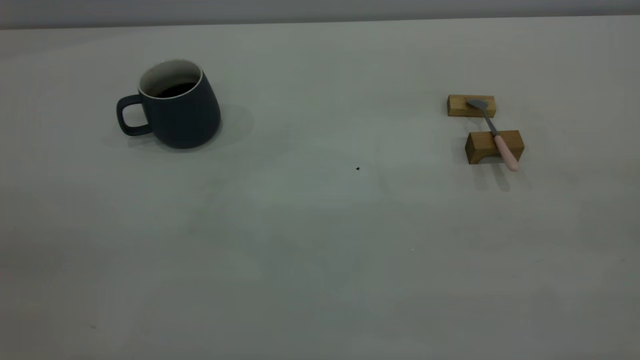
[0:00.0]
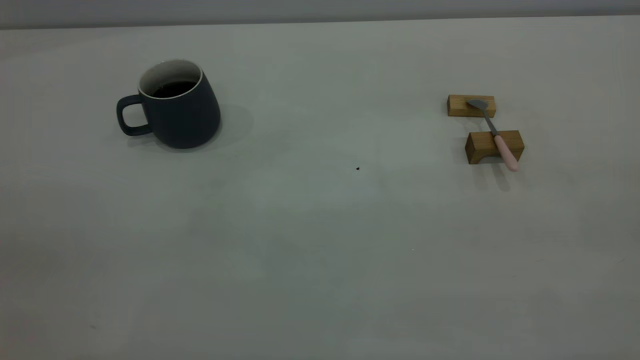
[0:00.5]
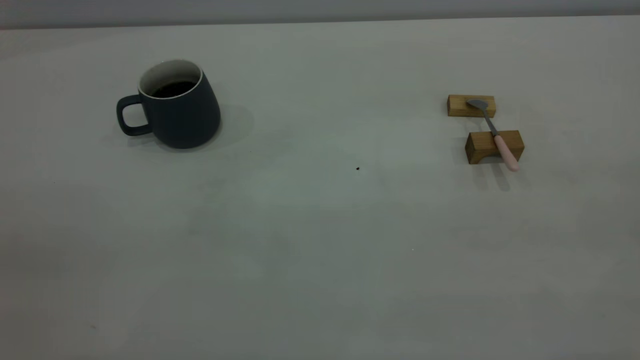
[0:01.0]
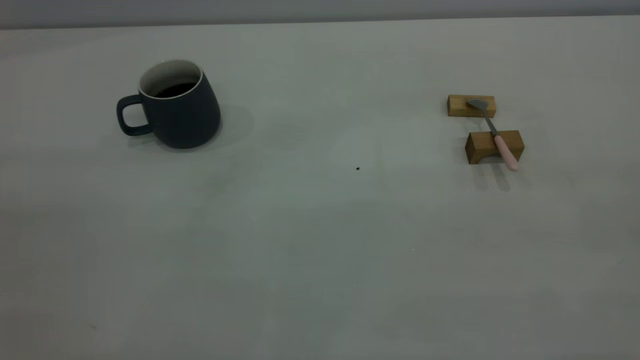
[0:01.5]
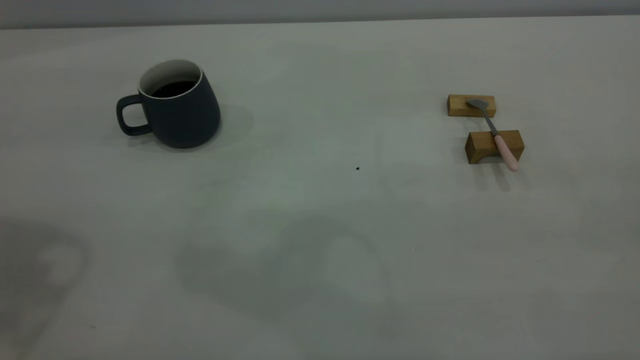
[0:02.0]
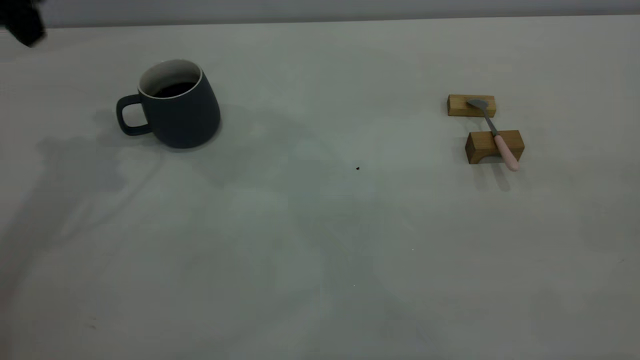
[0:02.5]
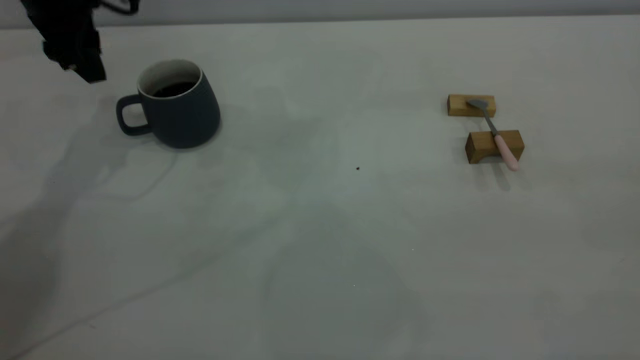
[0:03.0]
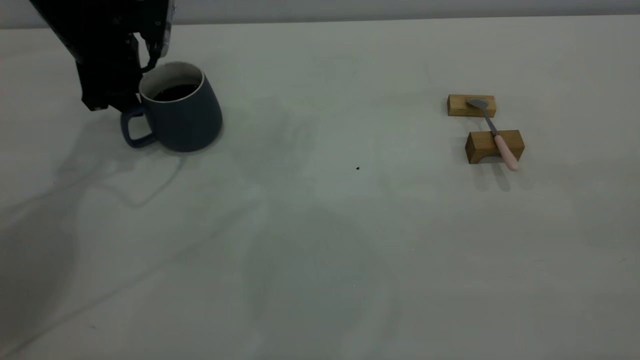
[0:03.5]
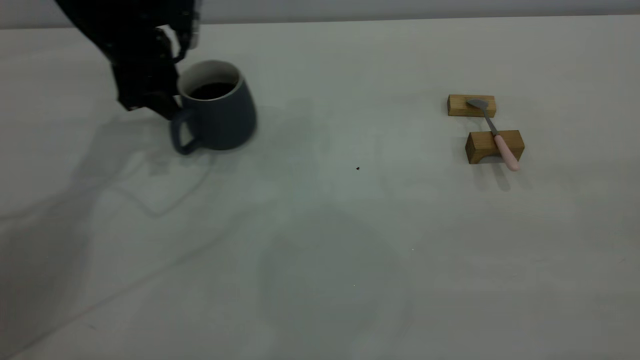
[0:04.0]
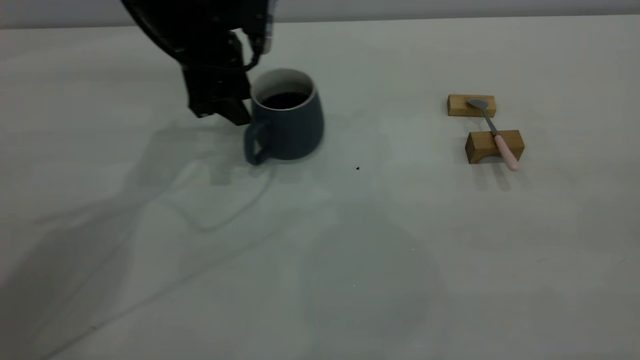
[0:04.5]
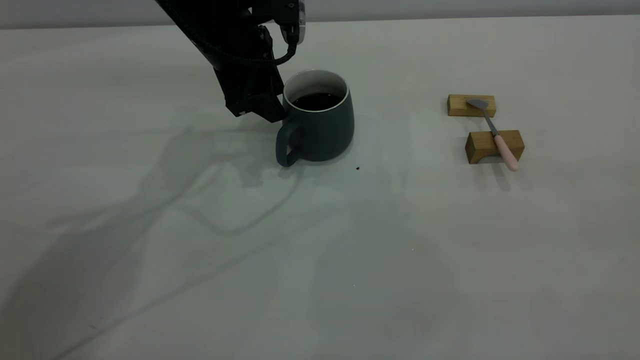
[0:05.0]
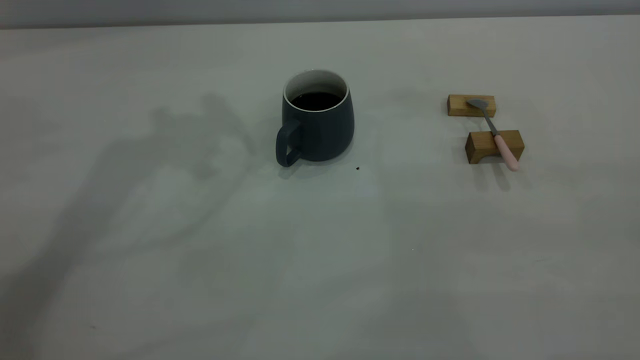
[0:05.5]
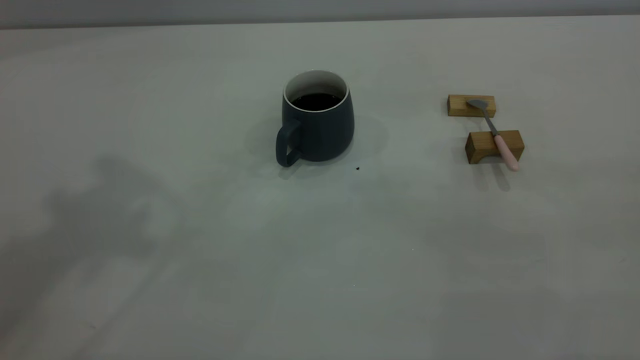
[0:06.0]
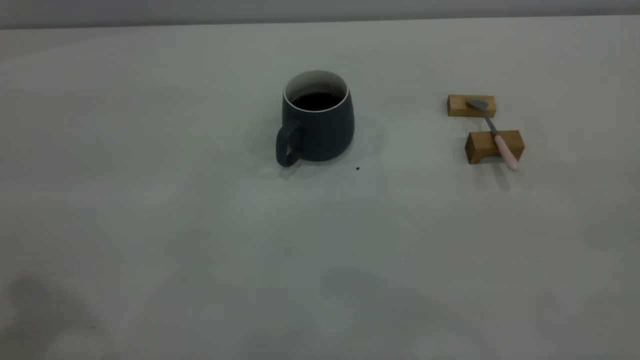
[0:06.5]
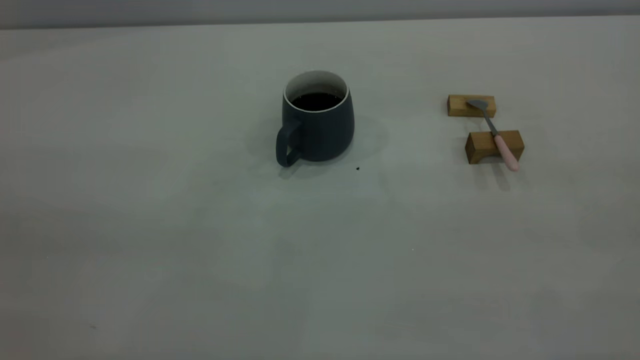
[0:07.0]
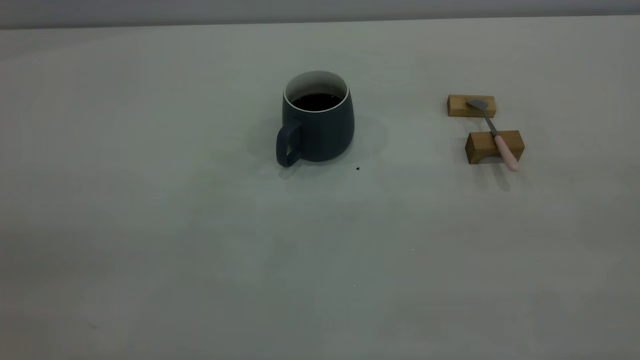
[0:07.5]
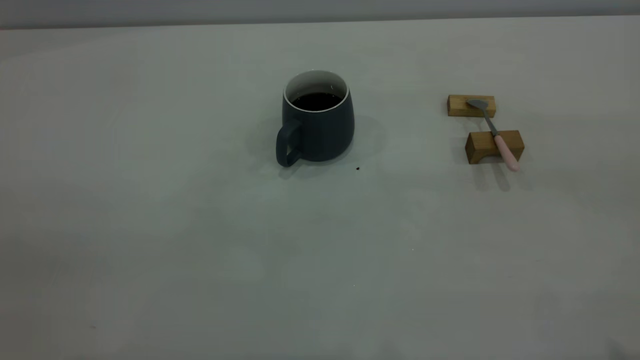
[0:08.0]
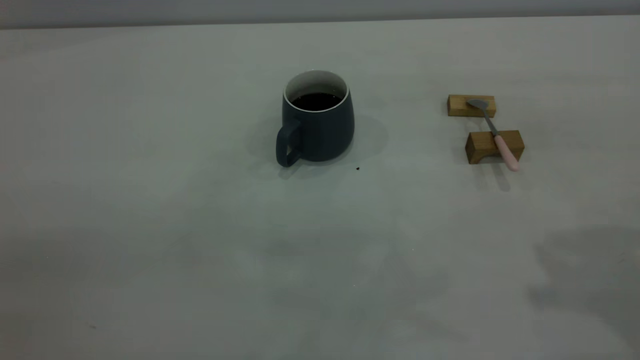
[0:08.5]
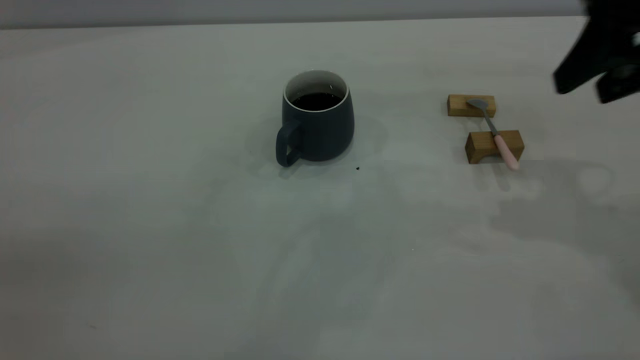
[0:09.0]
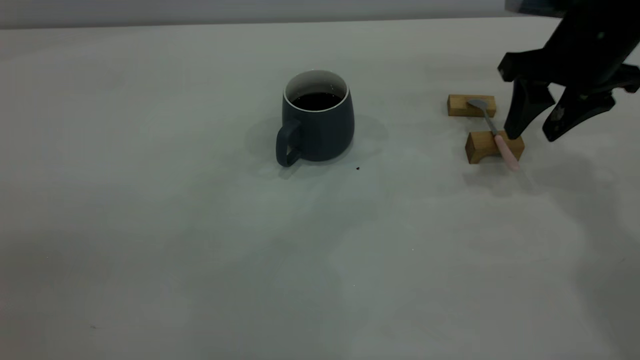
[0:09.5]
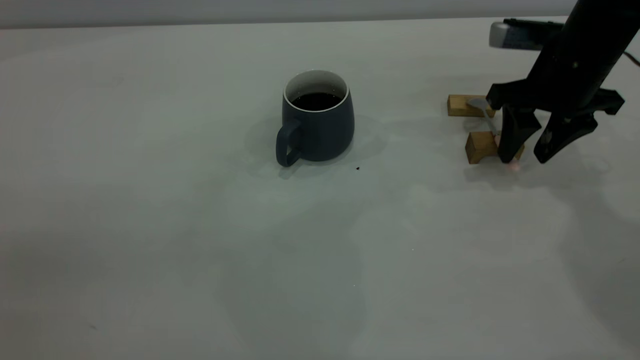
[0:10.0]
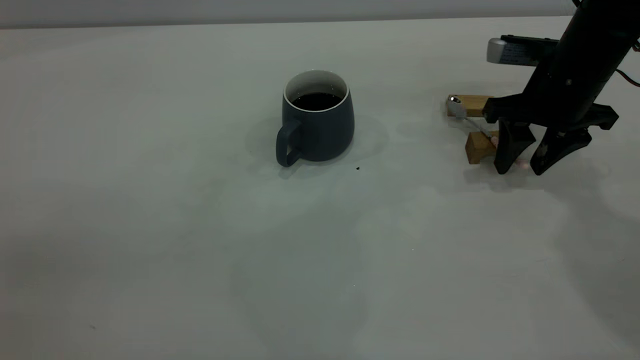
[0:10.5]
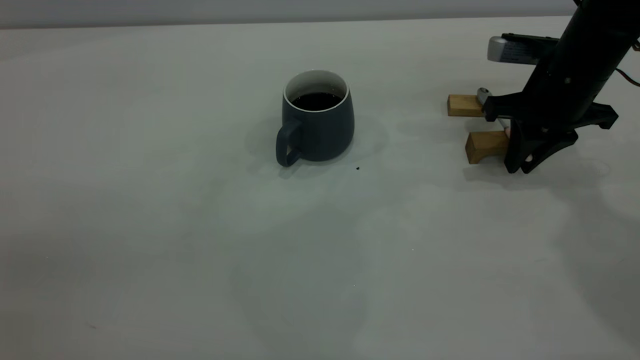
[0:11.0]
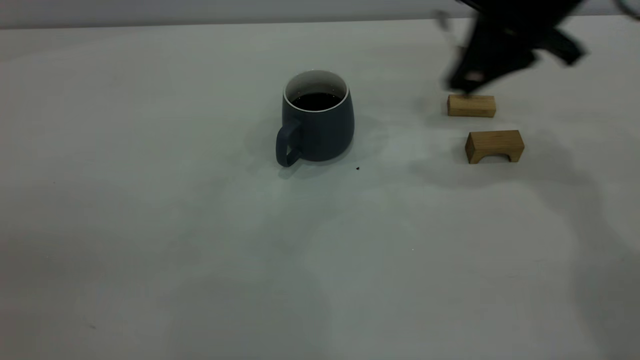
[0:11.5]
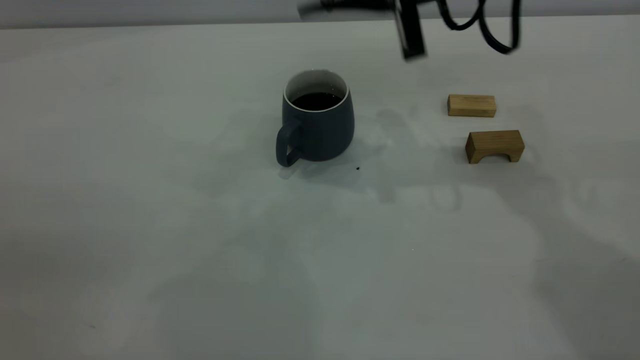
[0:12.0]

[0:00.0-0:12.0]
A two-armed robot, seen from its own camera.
Step, 0:00.0 to 0:05.0: Move the cup with coffee to the center of view.
Step, 0:05.5 to 0:11.0: Pick up the spoon.
0:02.0 to 0:04.0: The left gripper moves forward and downward, some 30 cm.
0:04.0 to 0:06.0: The left gripper heads upward and backward, covering roughly 40 cm.
0:08.0 to 0:10.0: The right gripper is displaced forward and downward by about 40 cm.
0:10.0 to 0:12.0: The right gripper travels to the left and upward by some 15 cm, and closes.

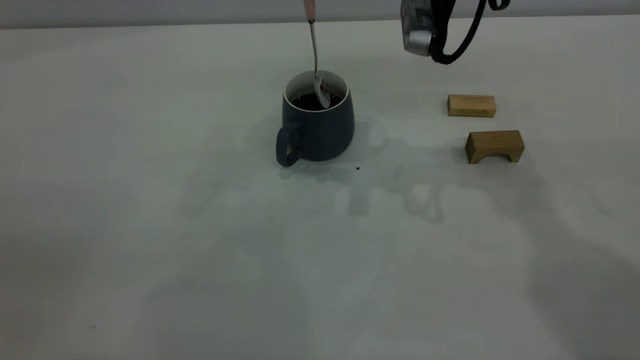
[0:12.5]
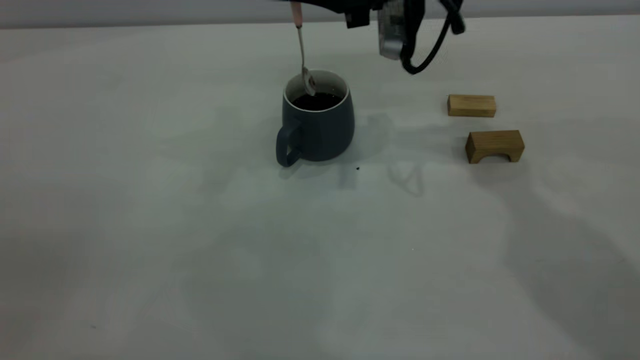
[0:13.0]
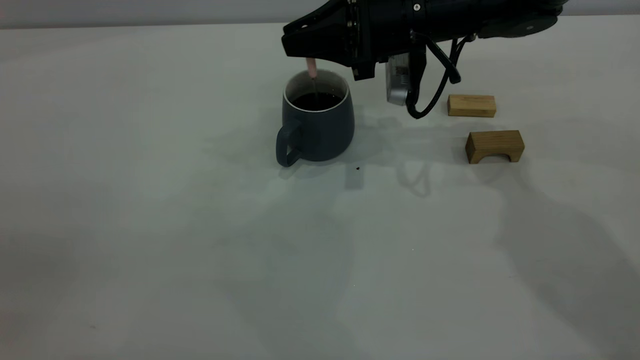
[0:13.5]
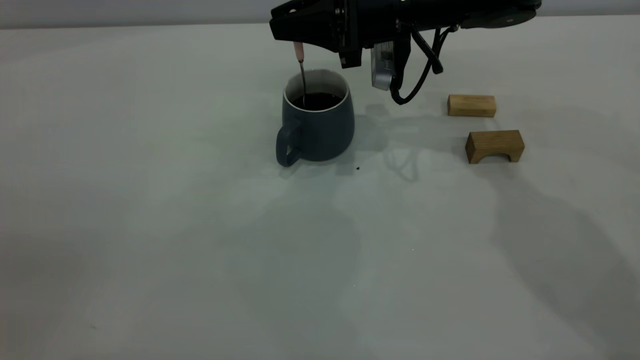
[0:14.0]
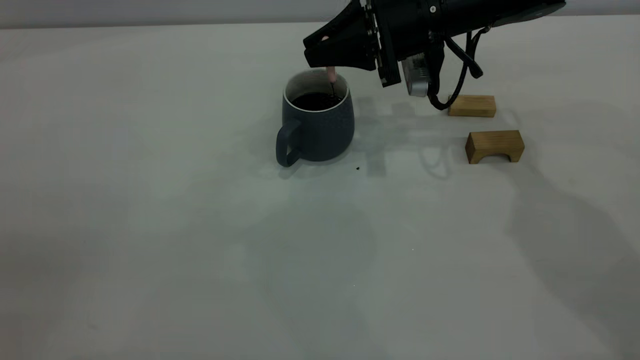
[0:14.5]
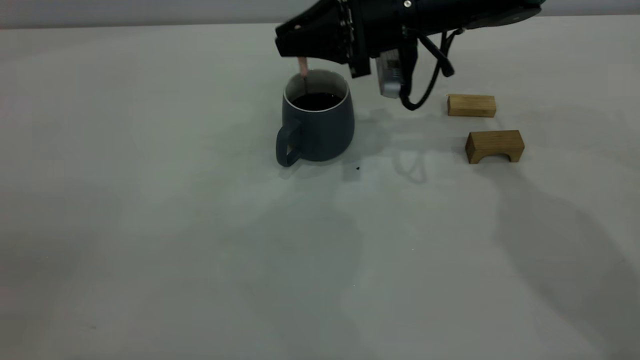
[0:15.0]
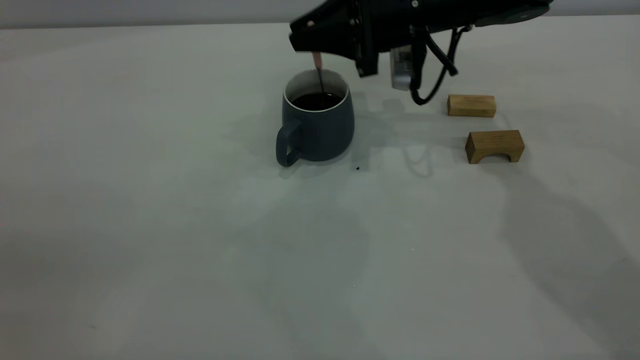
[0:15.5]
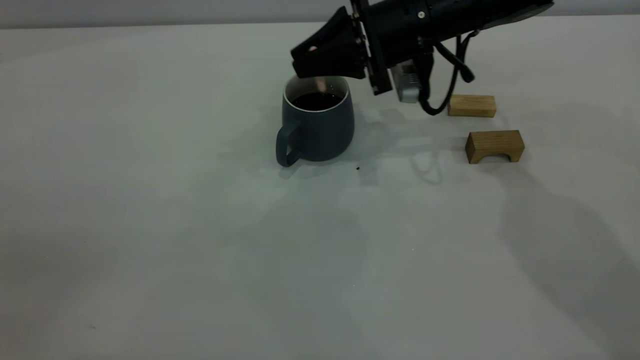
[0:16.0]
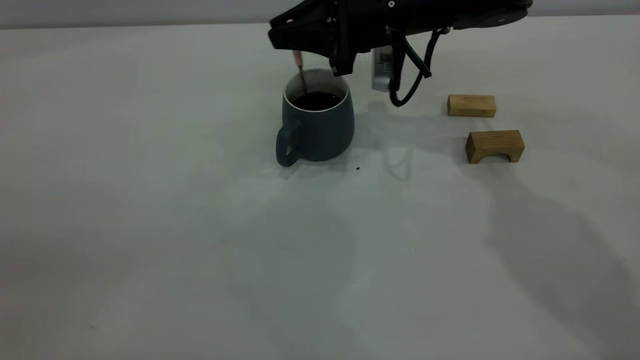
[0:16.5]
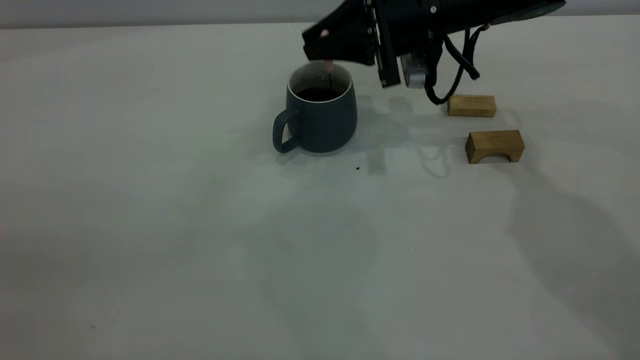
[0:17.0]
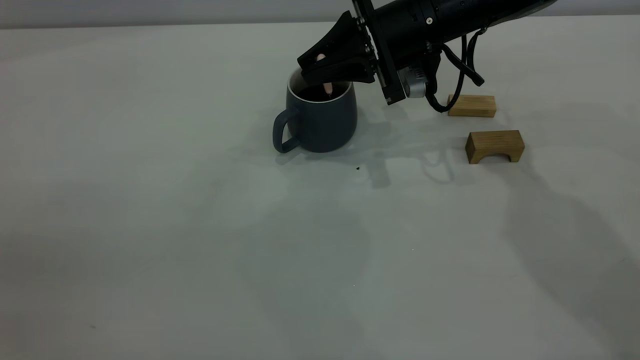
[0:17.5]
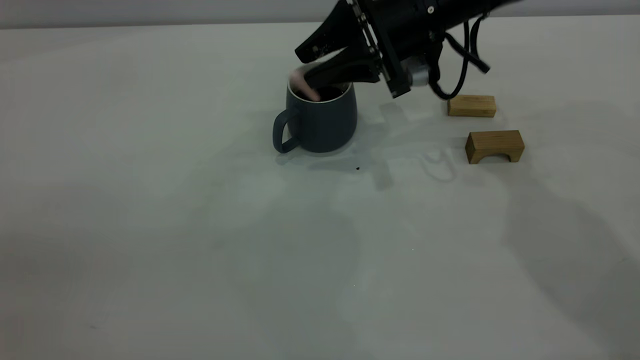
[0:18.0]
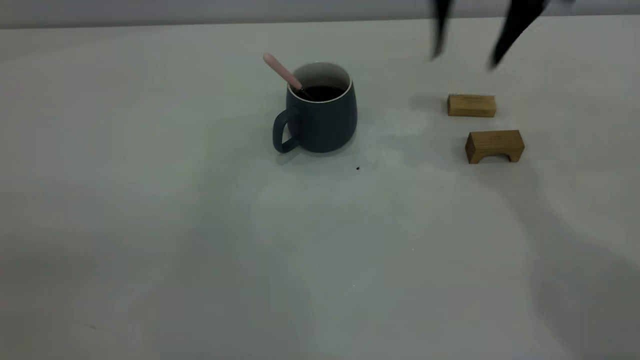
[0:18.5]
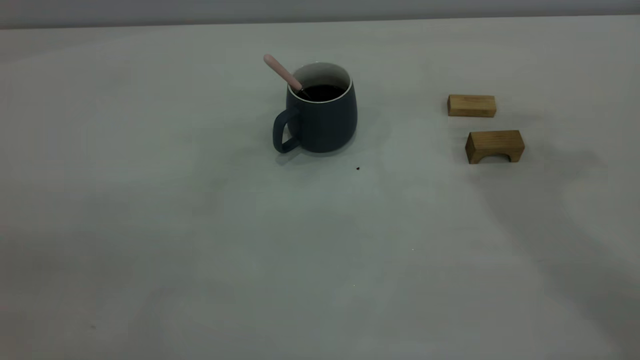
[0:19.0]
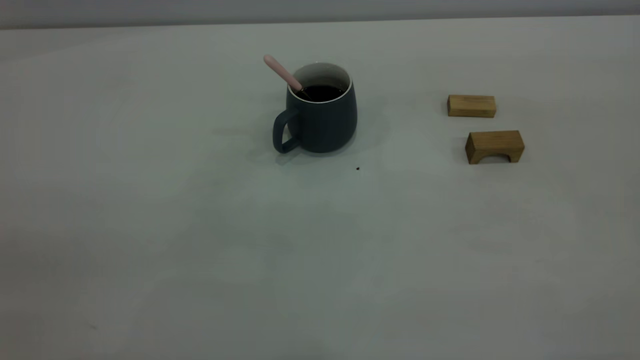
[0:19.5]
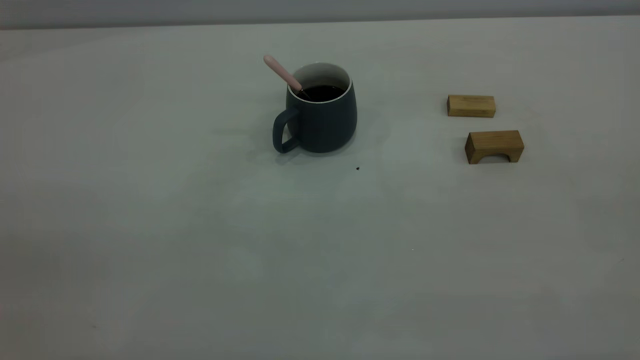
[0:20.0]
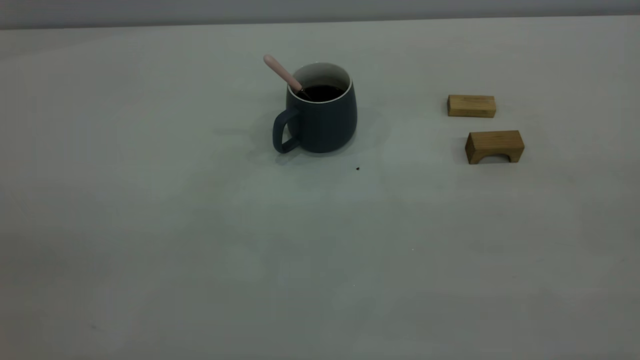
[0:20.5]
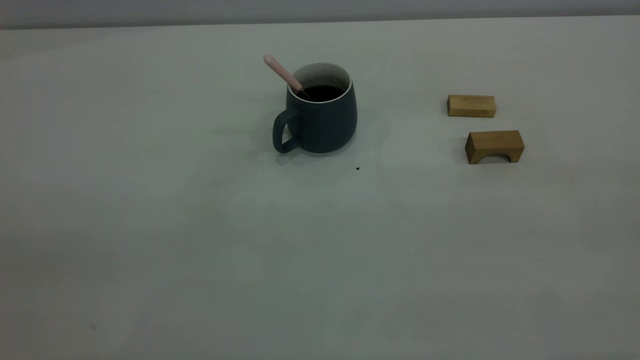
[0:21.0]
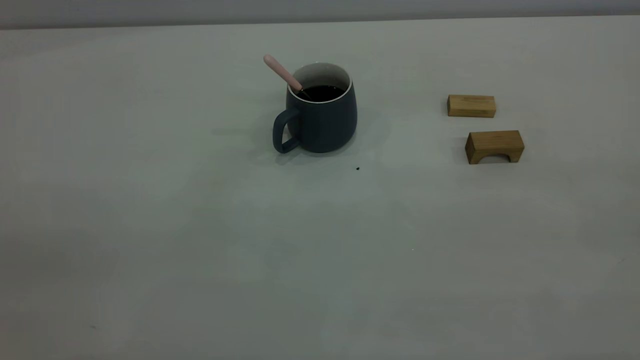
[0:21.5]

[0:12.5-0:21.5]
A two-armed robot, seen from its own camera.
Step, 0:12.5 to 0:18.0: Stir the coffee in the cup.
0:12.5 to 0:14.5: The right gripper moves downward and forward, roughly 10 cm.
0:14.5 to 0:17.0: The grippers make only small movements.
0:17.0 to 0:19.5: The right gripper is displaced backward, upward and to the right by roughly 60 cm, and opens, then closes again.
